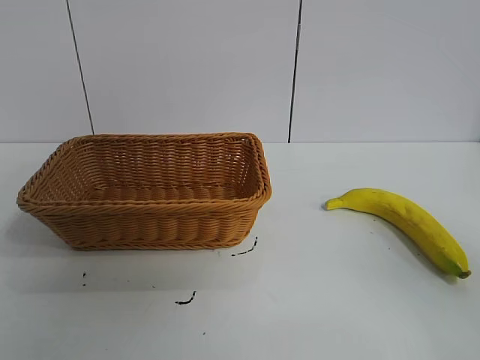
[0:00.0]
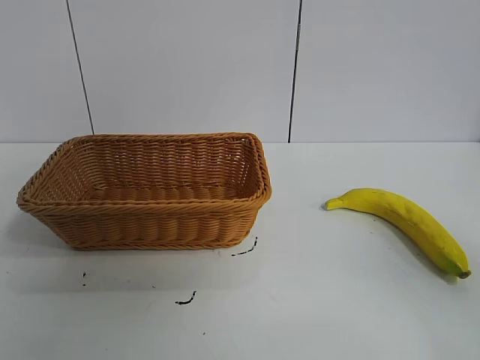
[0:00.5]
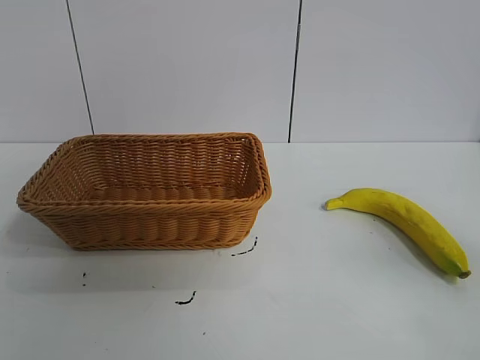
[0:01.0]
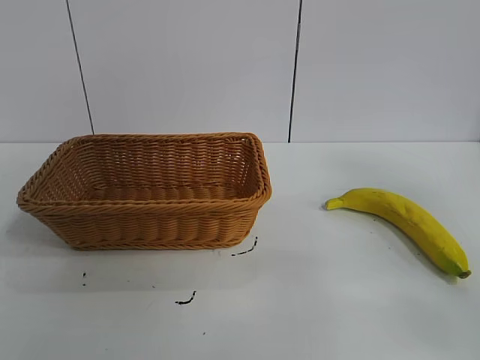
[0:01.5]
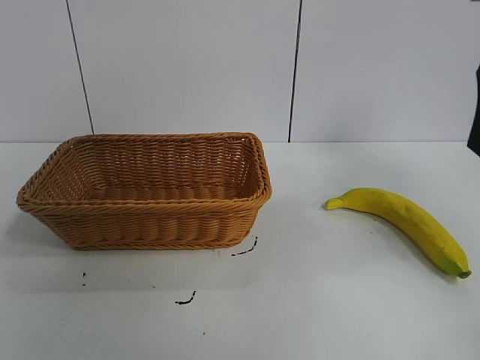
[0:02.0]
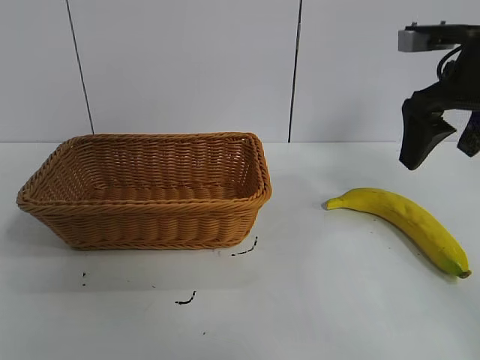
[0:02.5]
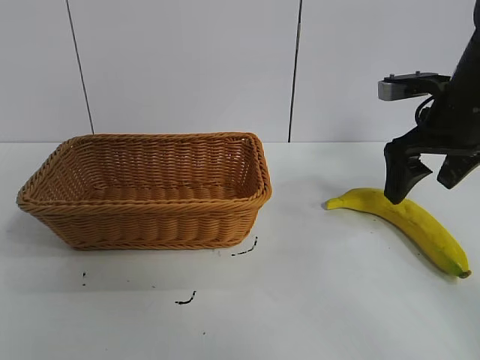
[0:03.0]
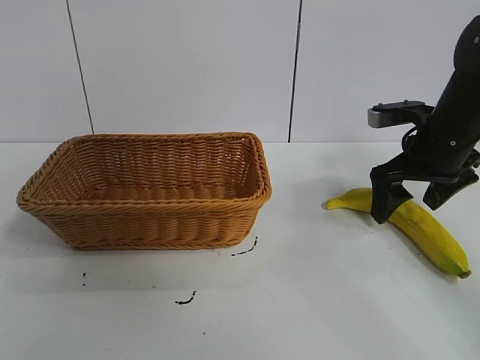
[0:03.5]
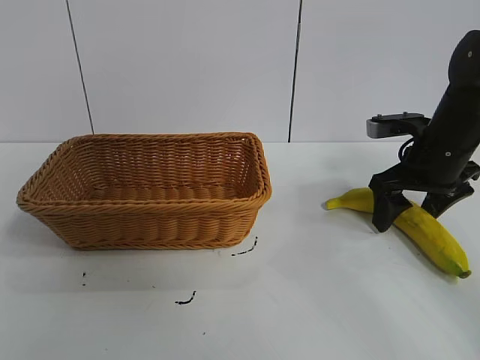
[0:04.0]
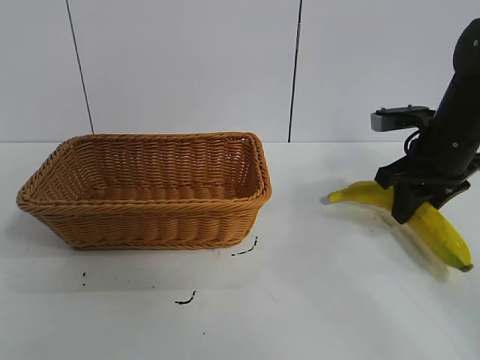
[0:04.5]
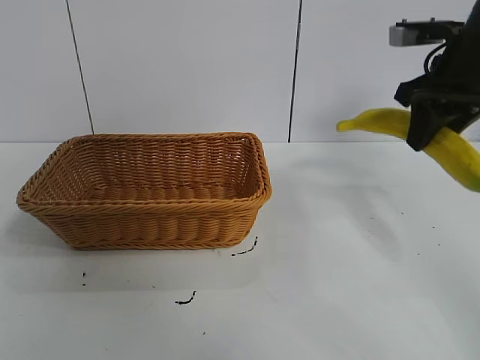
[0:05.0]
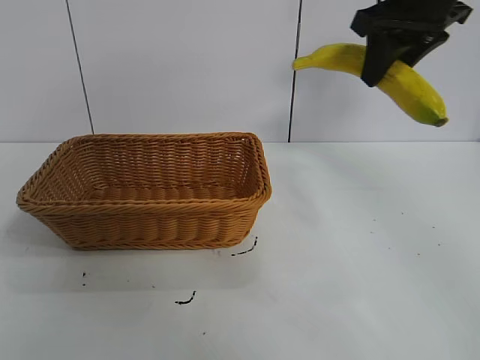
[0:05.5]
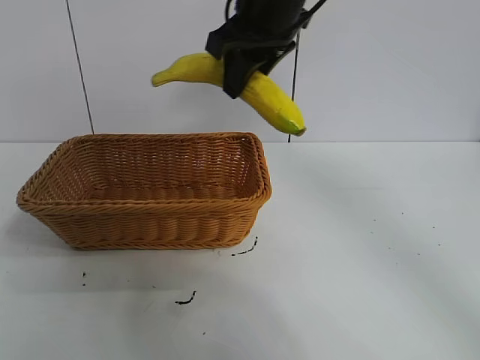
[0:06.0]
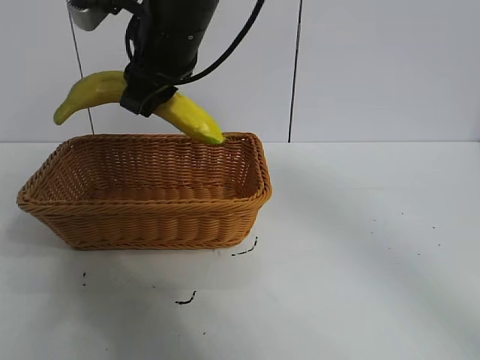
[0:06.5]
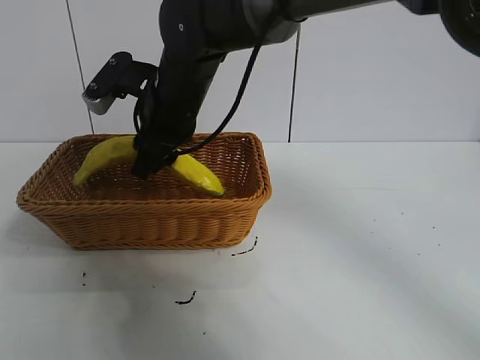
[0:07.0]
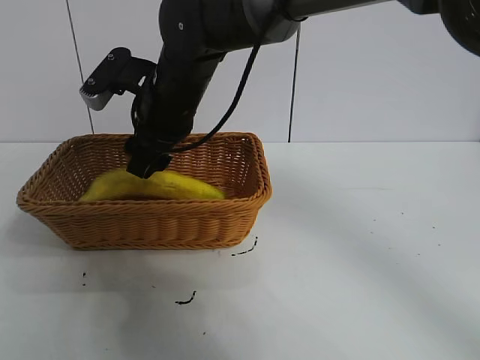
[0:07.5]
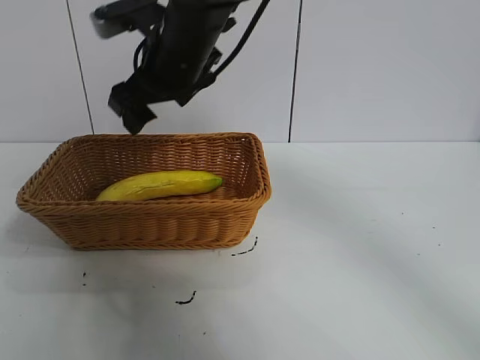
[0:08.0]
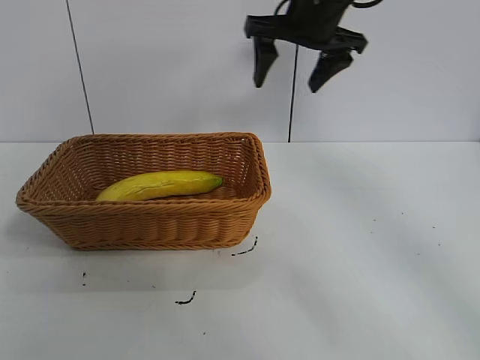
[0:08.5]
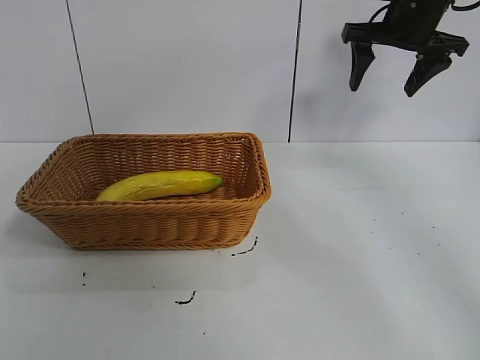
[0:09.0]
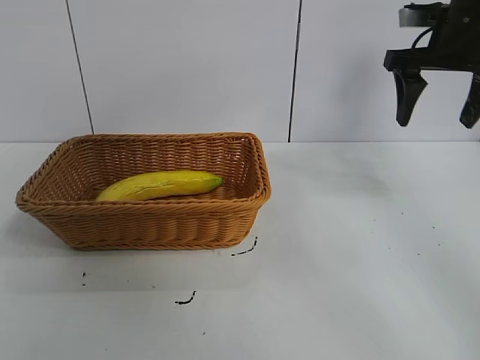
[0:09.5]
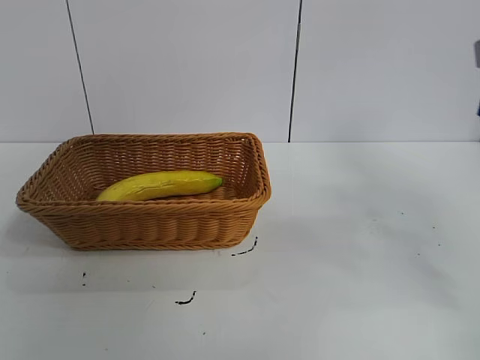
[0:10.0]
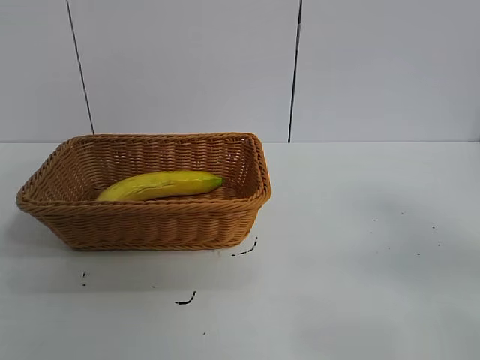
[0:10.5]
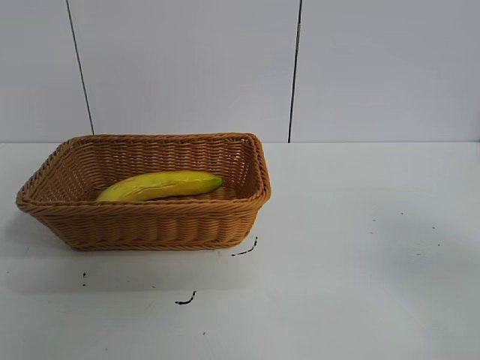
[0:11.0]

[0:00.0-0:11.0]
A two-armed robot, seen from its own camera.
Task of the whole recording: pick up the banana and put it into the basket.
Step, 0:01.0 to 0:04.0: Grasp the banana with right gripper.
Step, 0:04.5 to 0:07.5: Place the banana in the basket with right gripper.

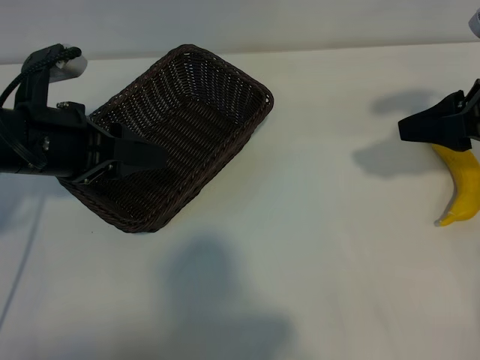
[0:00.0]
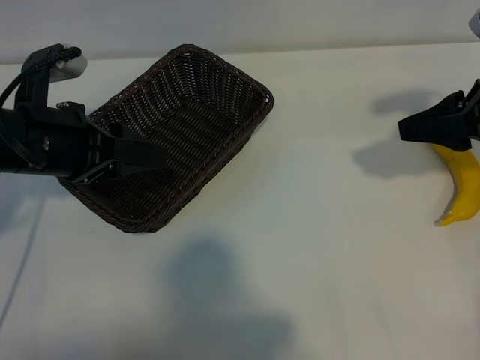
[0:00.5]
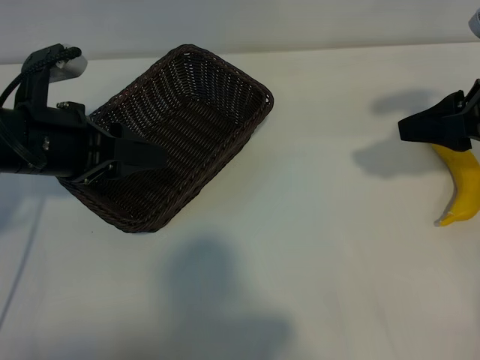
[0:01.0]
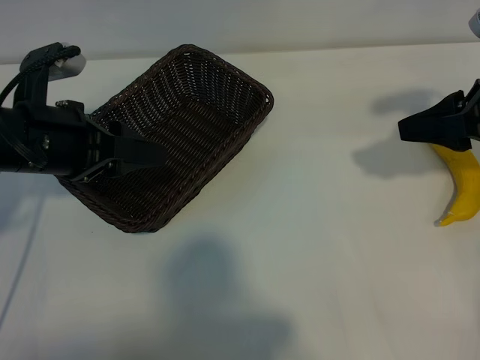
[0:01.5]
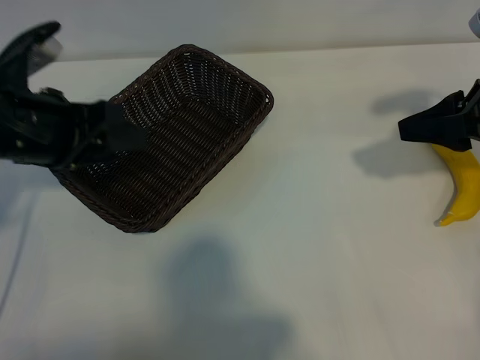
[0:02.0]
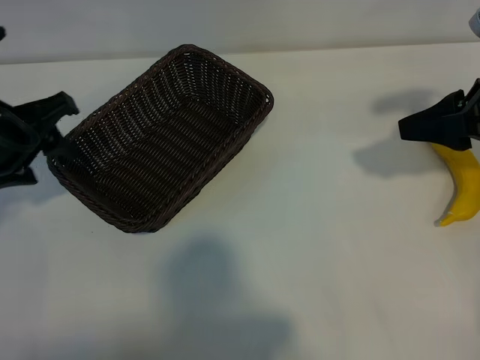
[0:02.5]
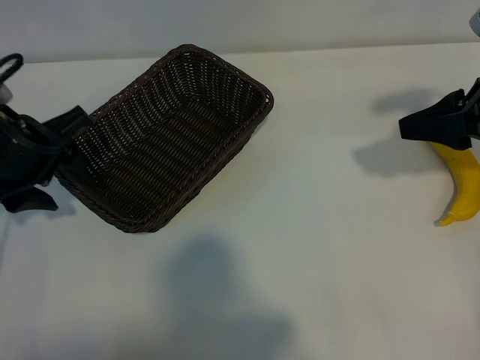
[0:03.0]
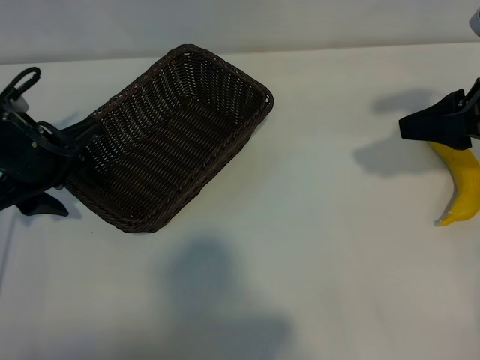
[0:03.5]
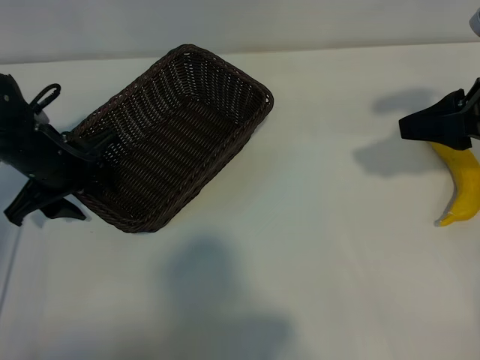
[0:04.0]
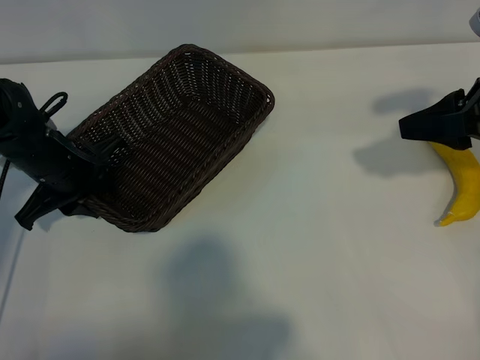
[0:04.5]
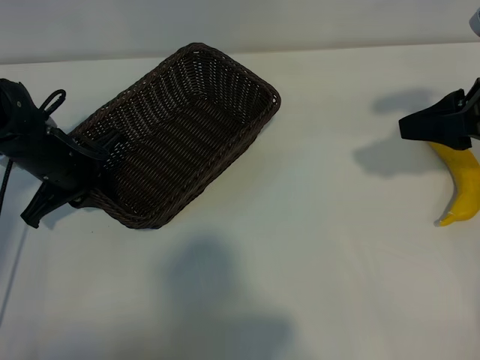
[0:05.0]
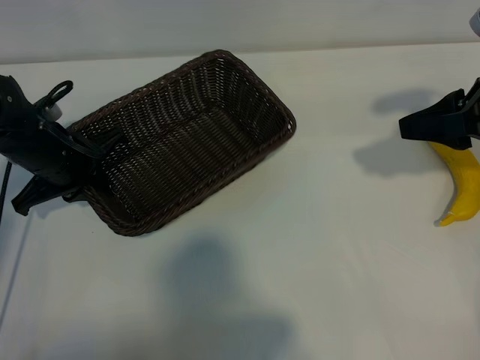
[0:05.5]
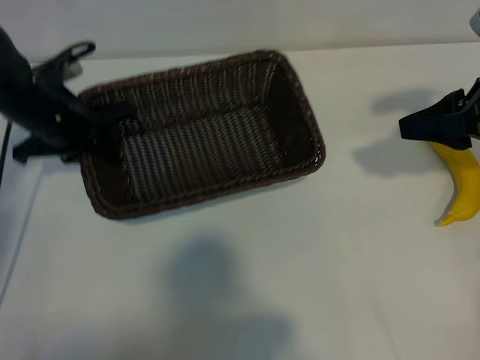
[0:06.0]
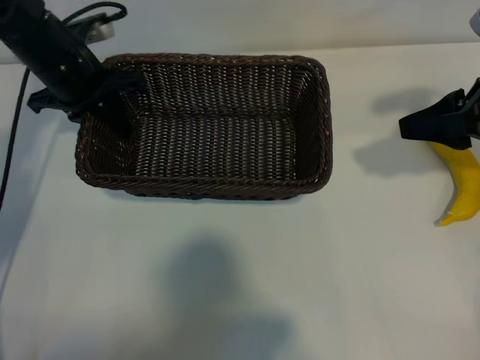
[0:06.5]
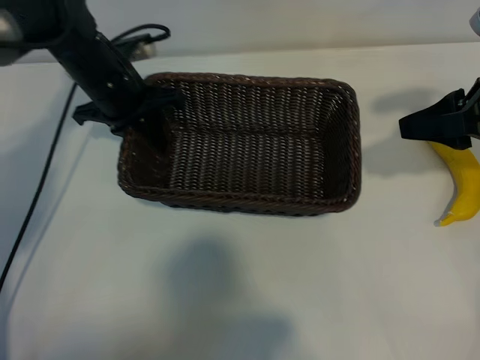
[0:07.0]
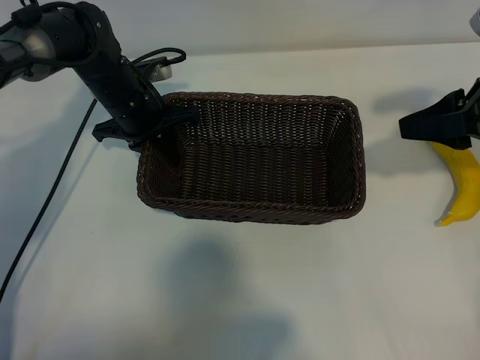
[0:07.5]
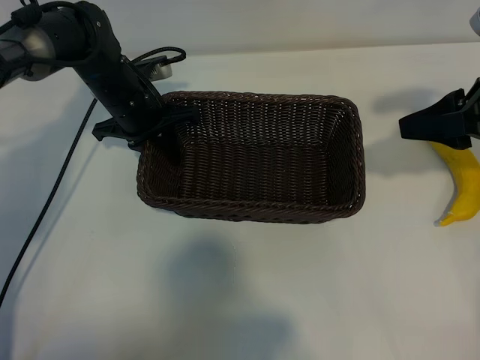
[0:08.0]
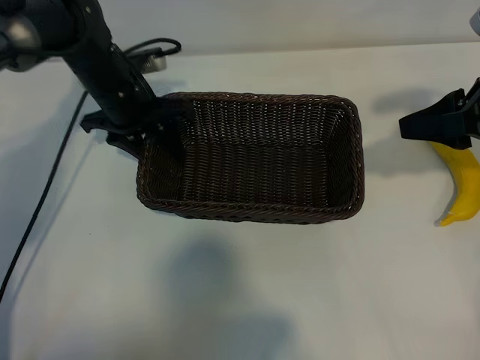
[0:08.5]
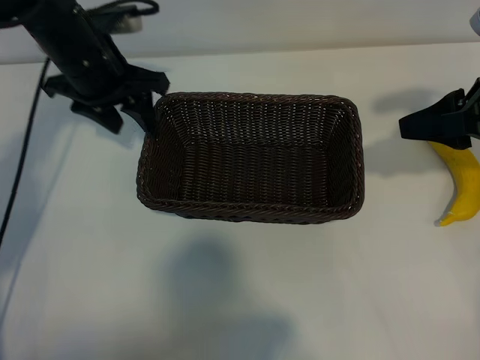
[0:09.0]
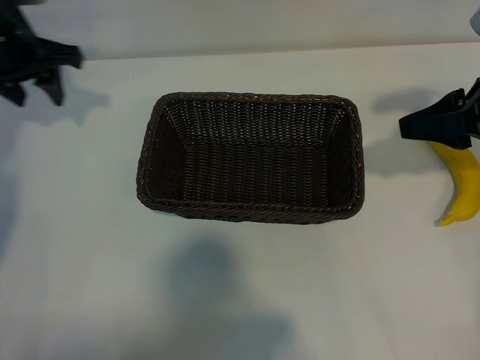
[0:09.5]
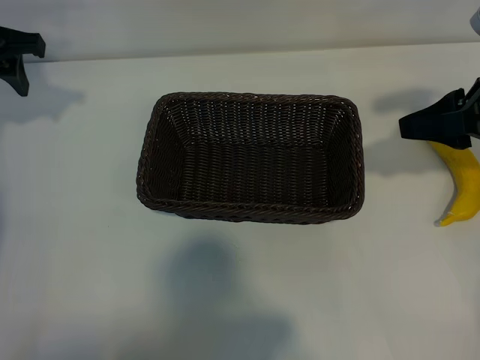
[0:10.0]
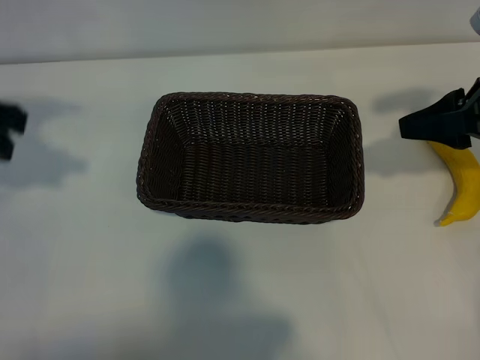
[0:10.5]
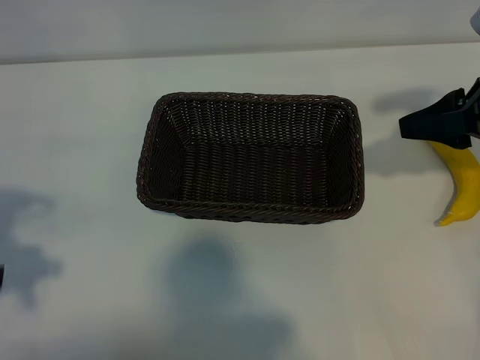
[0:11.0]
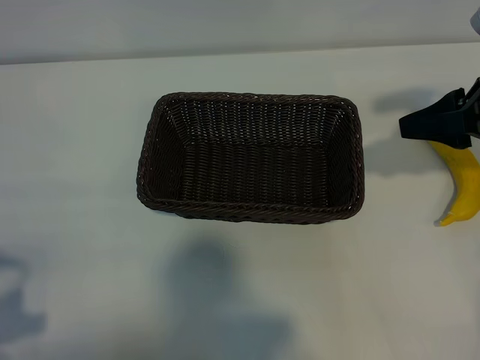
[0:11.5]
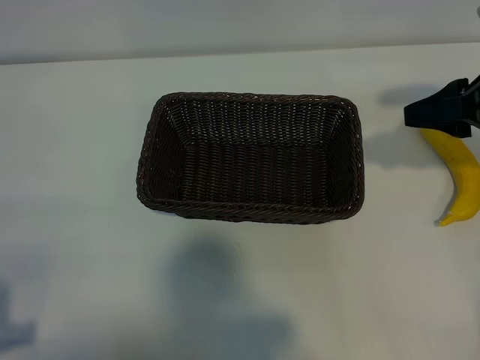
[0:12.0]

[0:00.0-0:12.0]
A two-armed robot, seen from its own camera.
Task of the whole recording: pick up the banana and put it into the basket.
Step, 0:02.0 to 0:04.5: Grasp the basket with the left gripper.
Step, 0:05.5 to 0:08.5: Place the basket in the center of the table with the left gripper.

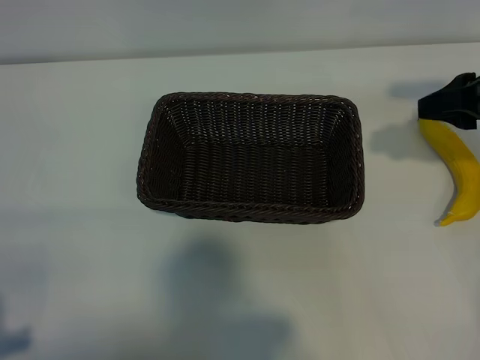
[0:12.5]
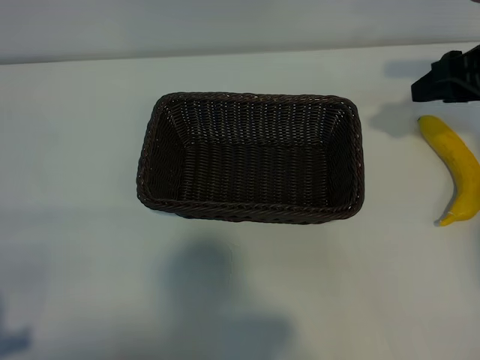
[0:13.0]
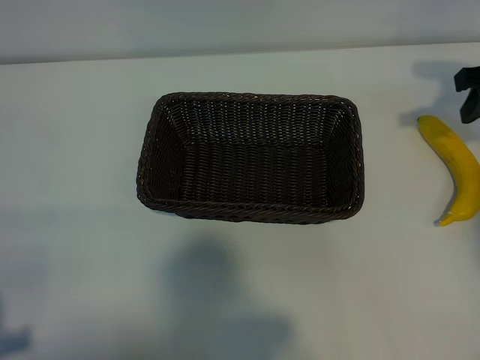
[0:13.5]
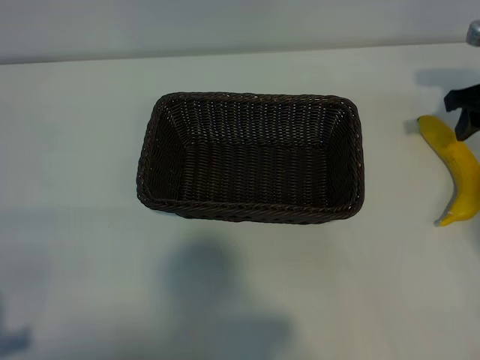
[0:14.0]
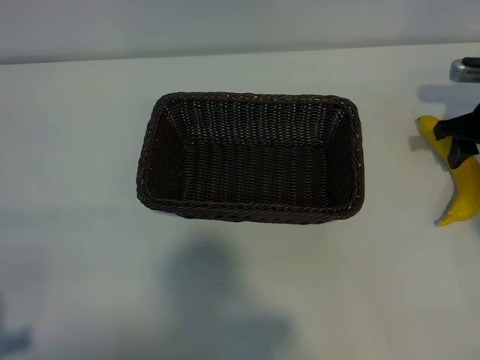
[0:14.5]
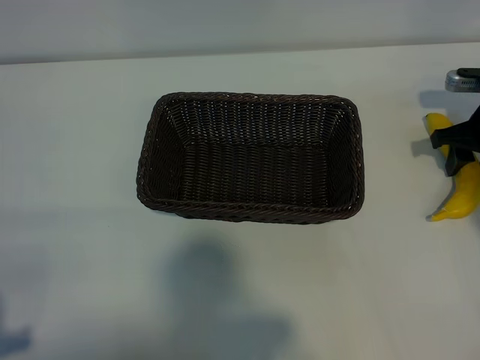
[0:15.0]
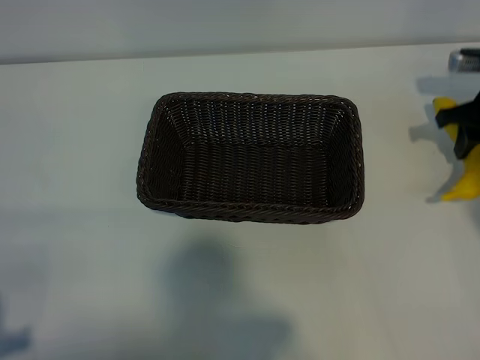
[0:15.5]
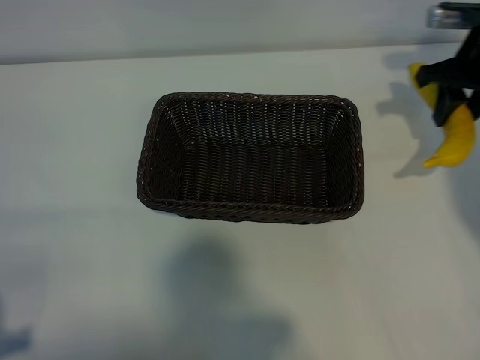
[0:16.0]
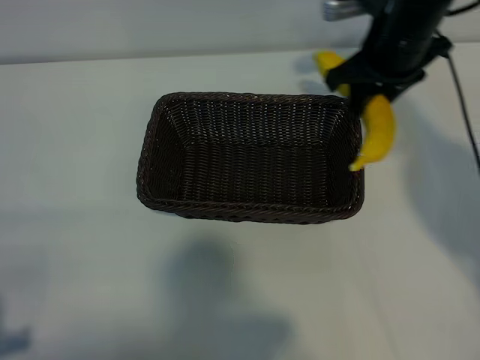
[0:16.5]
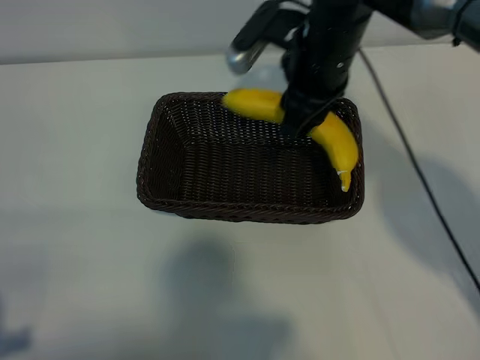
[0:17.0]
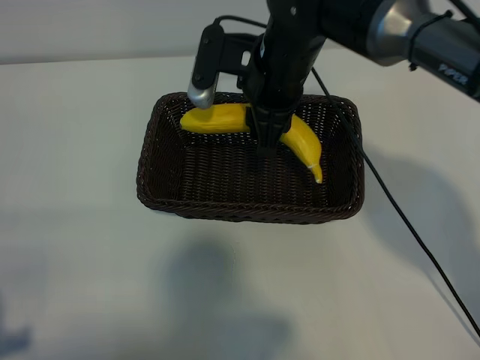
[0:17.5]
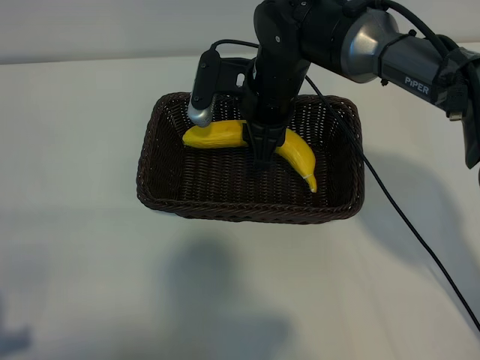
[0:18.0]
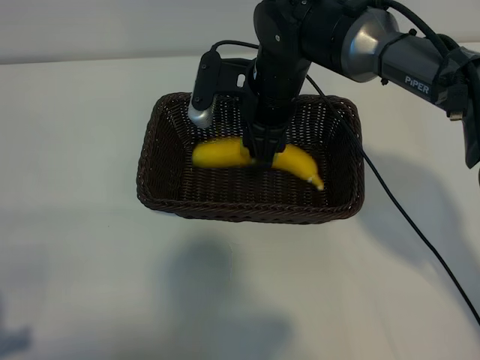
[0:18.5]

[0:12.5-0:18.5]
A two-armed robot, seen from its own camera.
Task of the whole recording: pick up the banana and put it into the basket.
Step, 0:12.5 to 0:14.5: Grasp the banana with right gripper.
